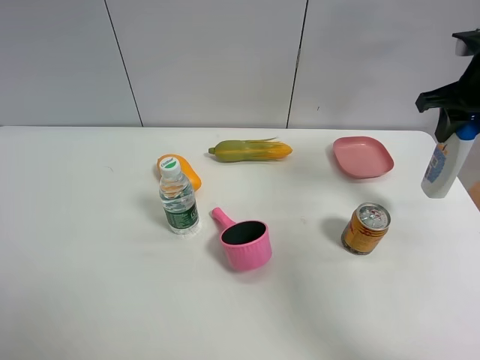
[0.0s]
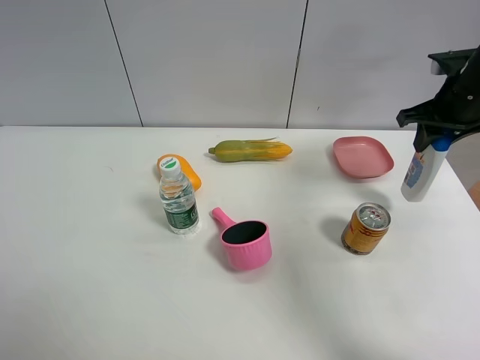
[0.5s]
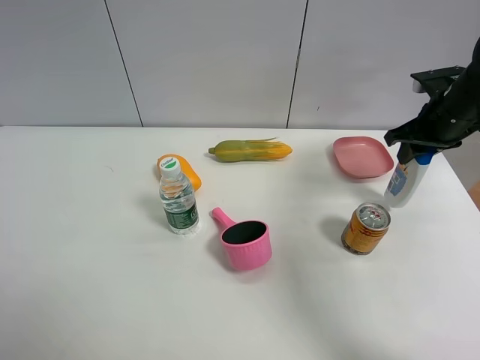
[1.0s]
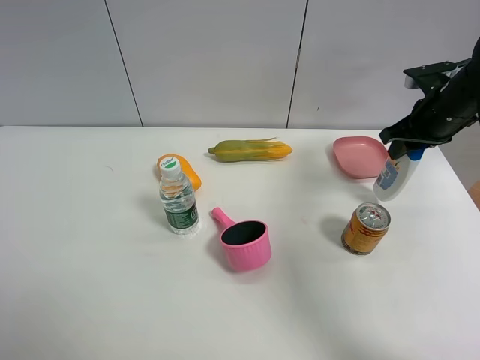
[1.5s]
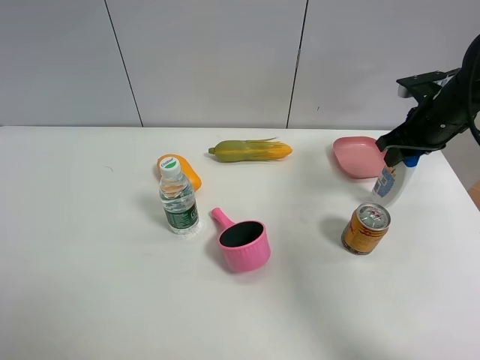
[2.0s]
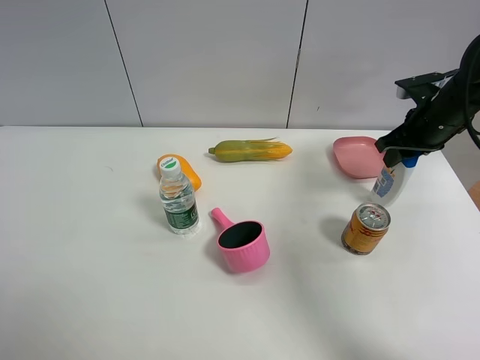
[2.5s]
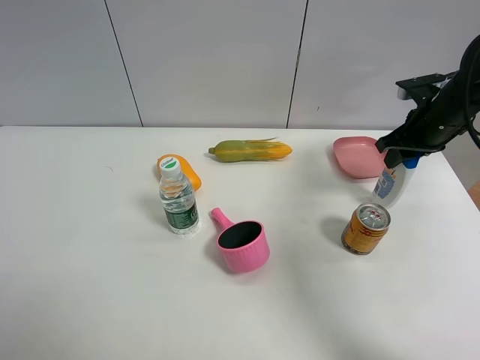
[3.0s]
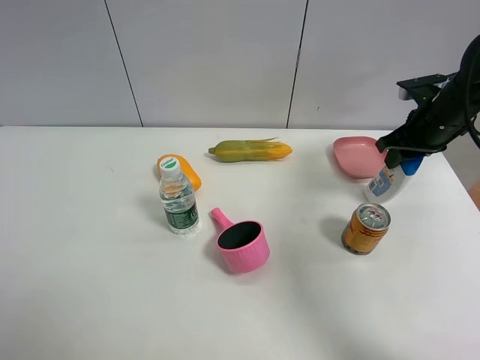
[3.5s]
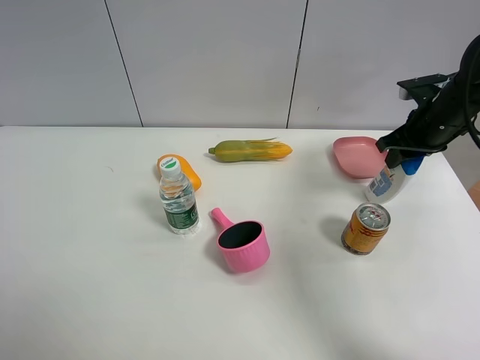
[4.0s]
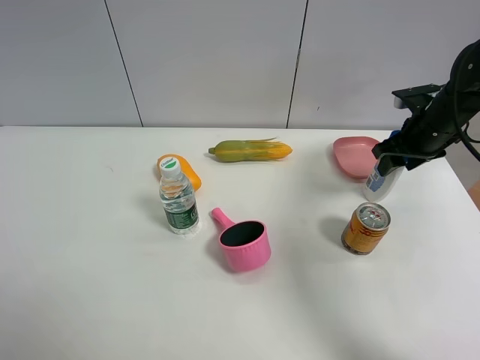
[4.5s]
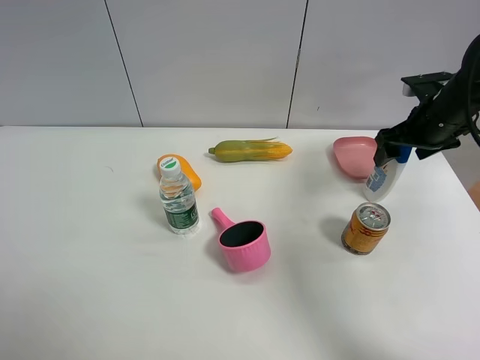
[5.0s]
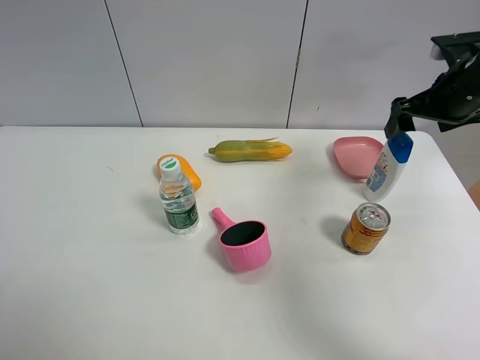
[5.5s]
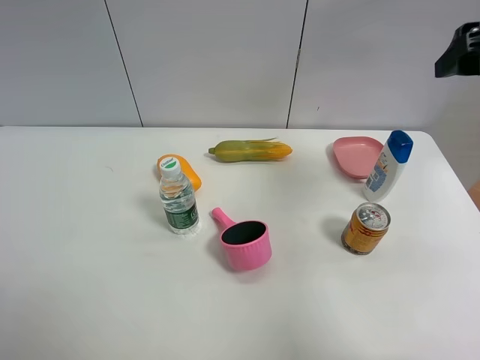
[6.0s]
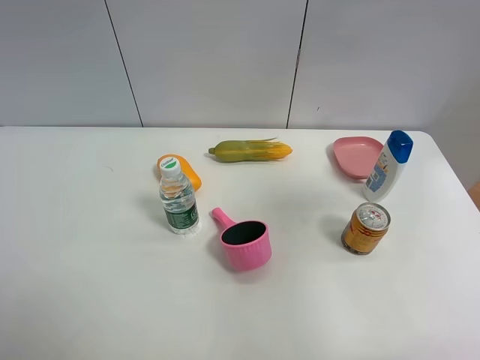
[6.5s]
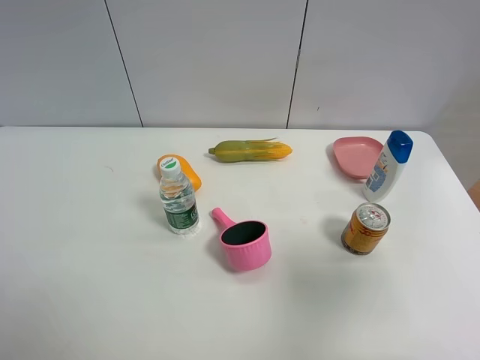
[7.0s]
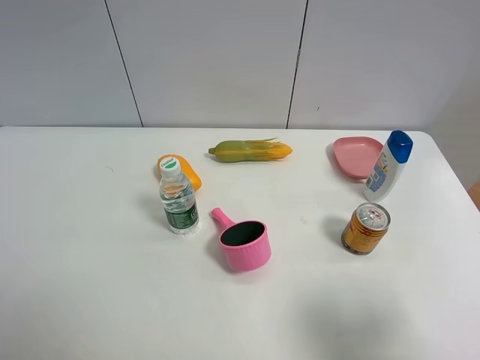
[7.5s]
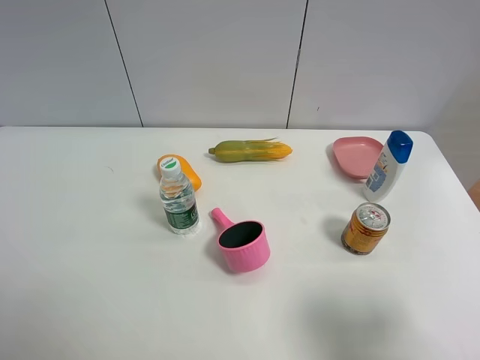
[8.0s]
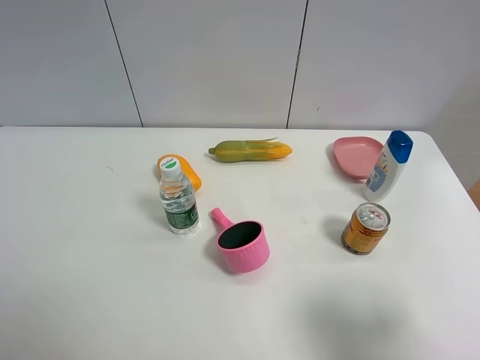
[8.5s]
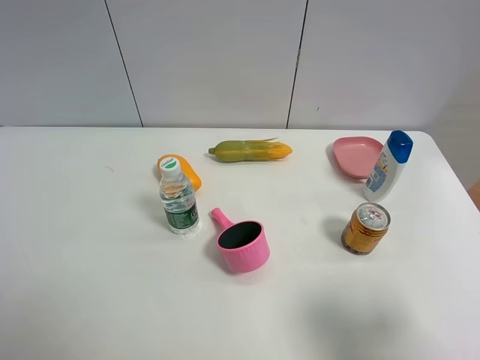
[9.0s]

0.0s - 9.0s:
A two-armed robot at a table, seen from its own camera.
Task of the whole recording: the gripper move the object.
Step, 0.0s - 4.5s: Place the shampoo on the table with the right gripper.
0.0s - 2.0s: The right gripper moves downward, some 10 cm.
2.0s - 4.5s: The grippers make only small movements.
4.5s - 7.0s: The right gripper goes some 40 cm backward and upward, and opens up.
7.0s - 9.0s: The right gripper shifts approximately 10 cm downward.

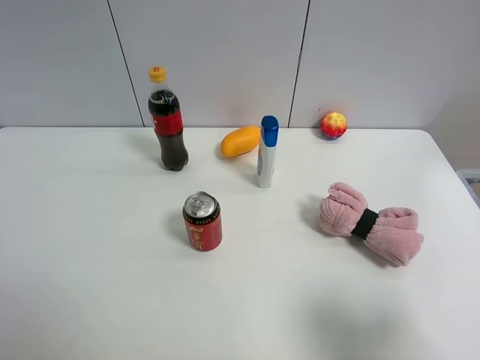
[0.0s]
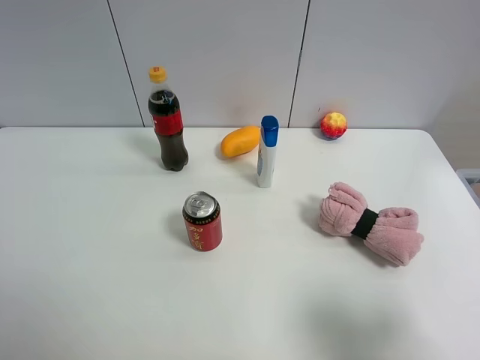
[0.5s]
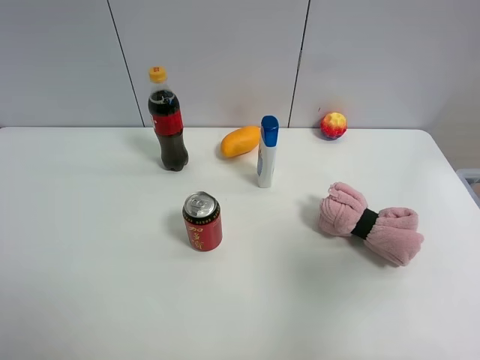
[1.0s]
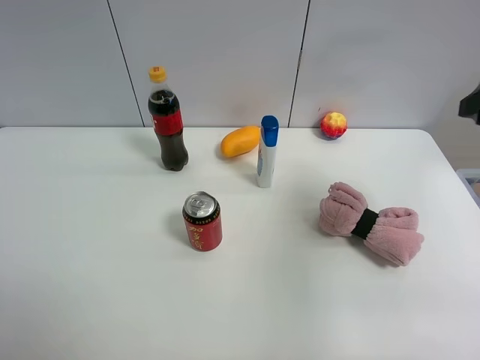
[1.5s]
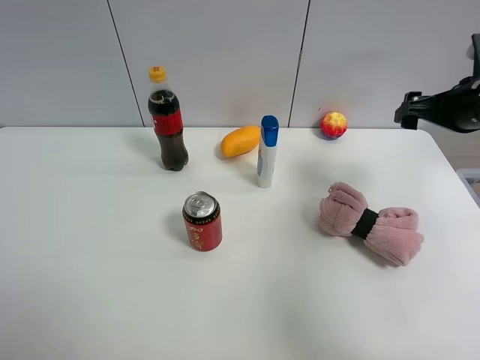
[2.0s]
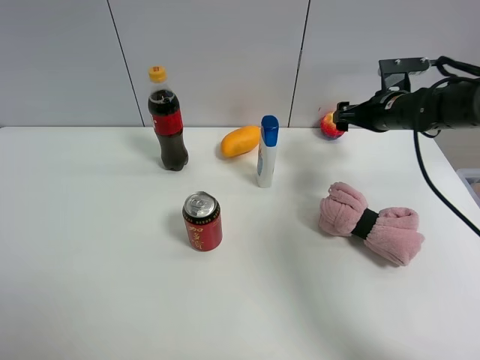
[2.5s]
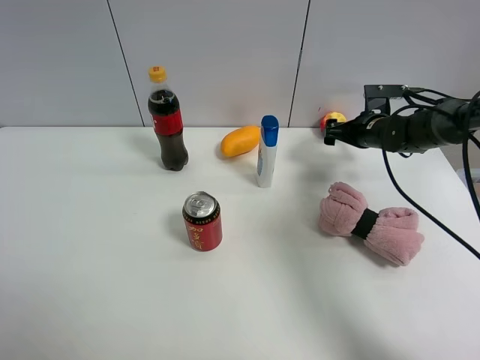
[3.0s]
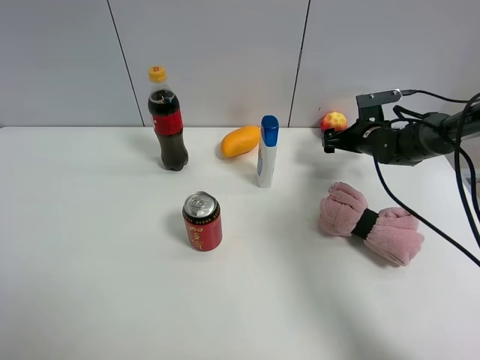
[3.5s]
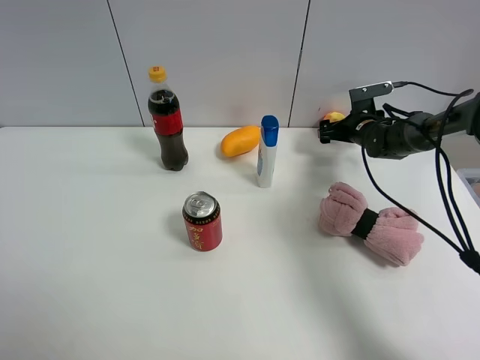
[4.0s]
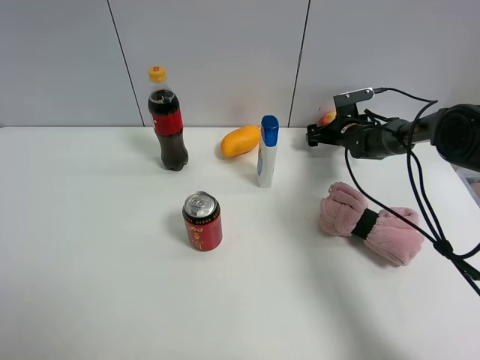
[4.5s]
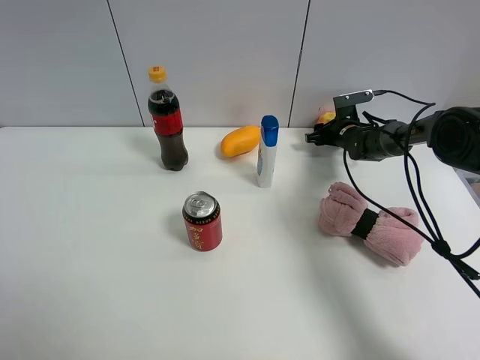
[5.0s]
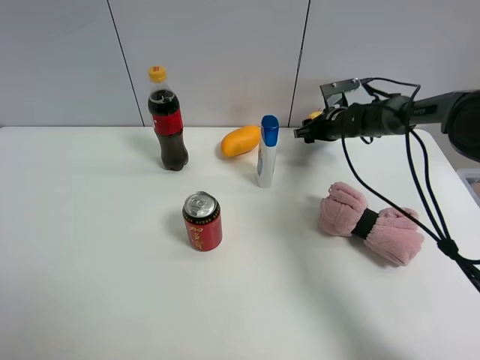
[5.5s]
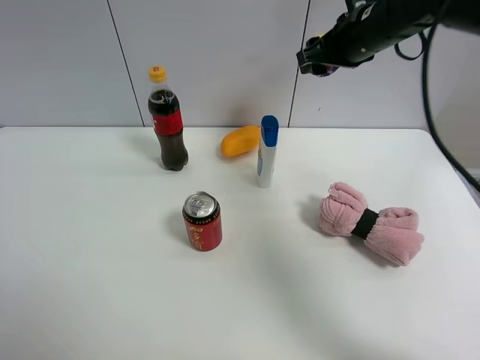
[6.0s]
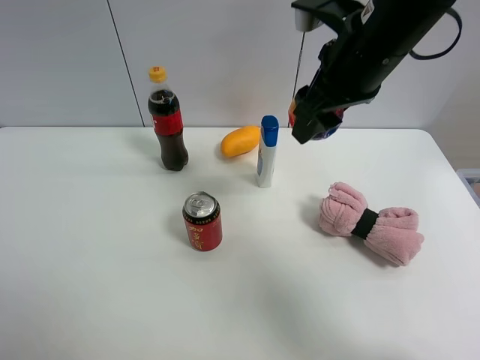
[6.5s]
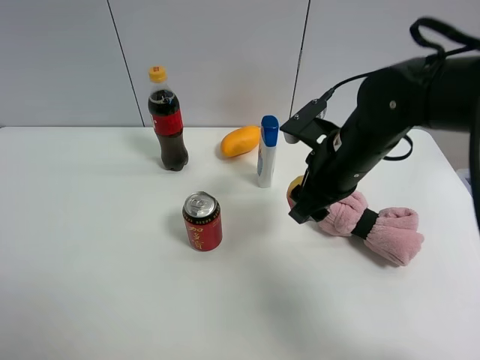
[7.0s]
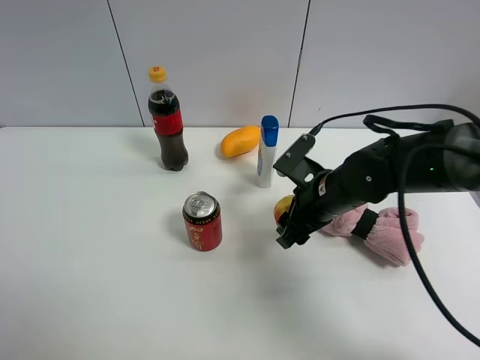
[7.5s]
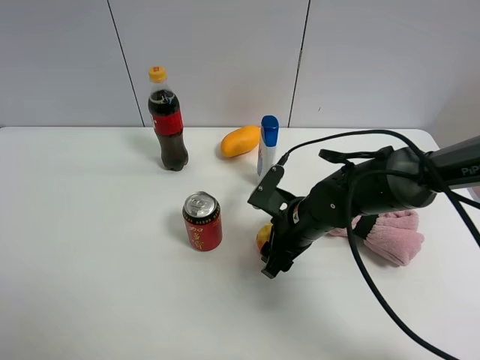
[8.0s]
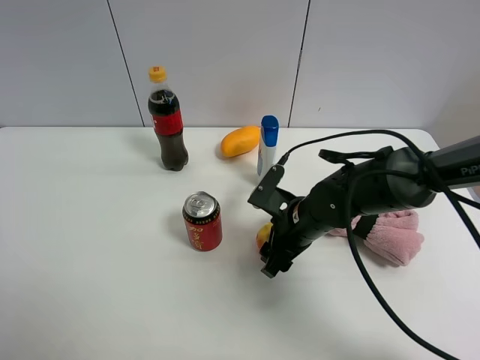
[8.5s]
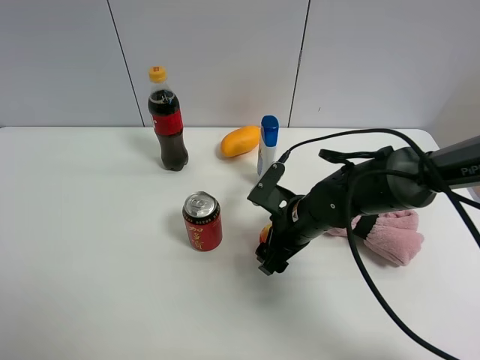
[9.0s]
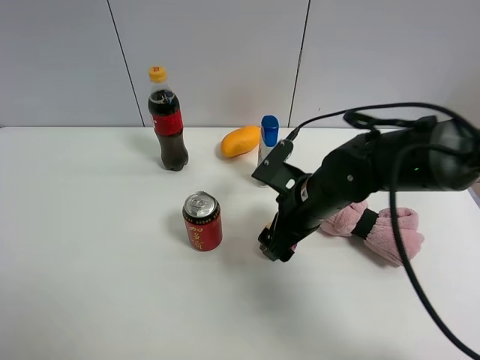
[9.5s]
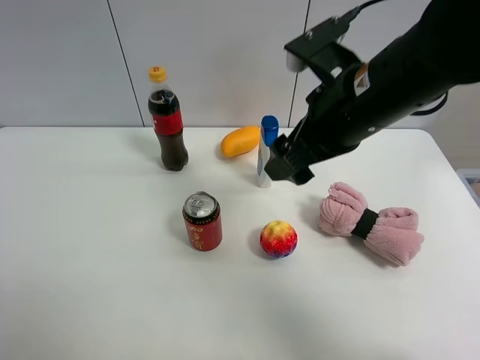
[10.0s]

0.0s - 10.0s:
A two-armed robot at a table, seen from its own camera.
Task of the whole recording: the gripper move the object.
Step, 0.0s - 4.5s: Grasp the colorful ball with the right gripper.
Step, 5.0s - 9.0s: Place the colorful ball on the table with the right gripper.
0.0s - 2.0s: The right gripper heads forward, covering about 30 cm.
2.0s - 4.0s: The right gripper moves downward and forward, about 25 cm.
4.0s - 6.0s: The right gripper shifts roughly 30 cm upward, to the left and backward, and closes up.
6.0s - 8.0s: The right gripper shifts roughly 25 cm downward and backward.
8.0s - 10.0s: The right gripper is displaced upward by approximately 20 cm, and opens its fingers.

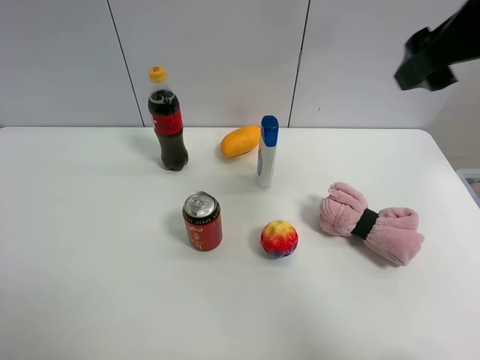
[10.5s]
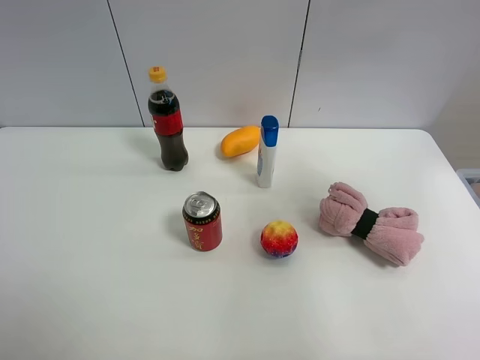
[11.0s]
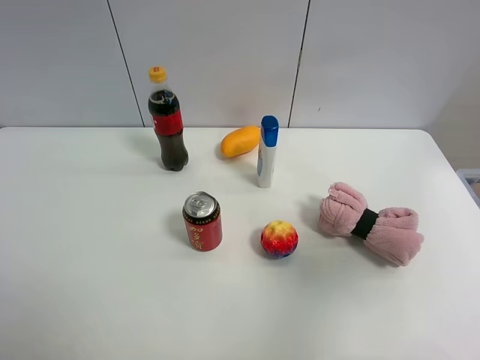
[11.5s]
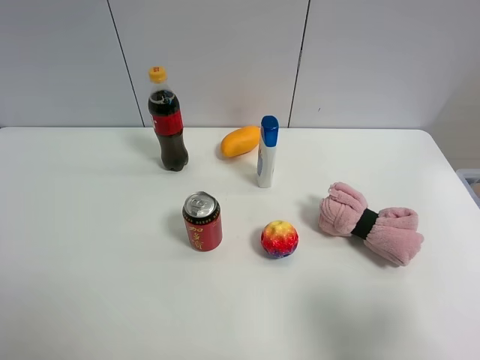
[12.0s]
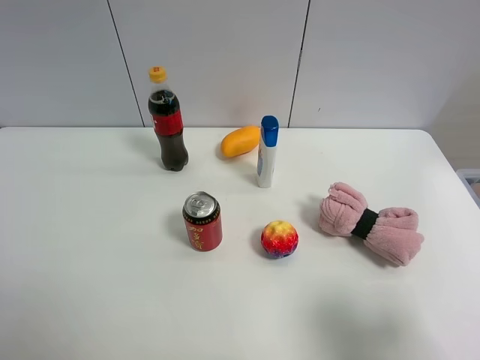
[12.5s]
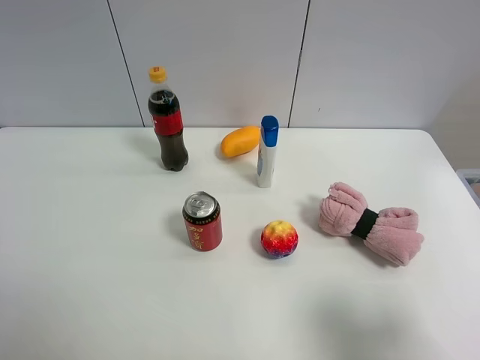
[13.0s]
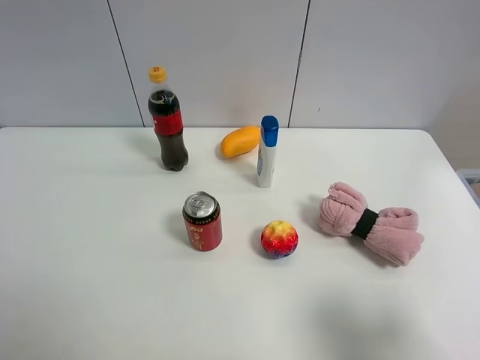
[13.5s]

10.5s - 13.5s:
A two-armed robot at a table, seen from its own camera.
Task of the whole recording: the gripper move the object.
10.5s - 12.0s: The right gripper moves backward and downward, roughly 25 cm.

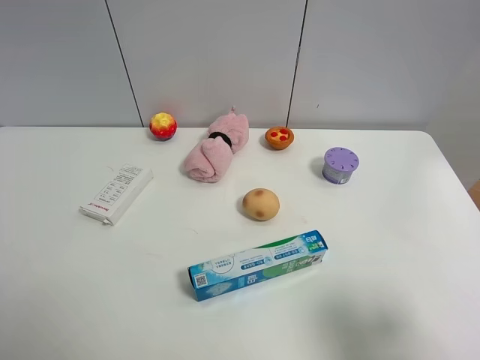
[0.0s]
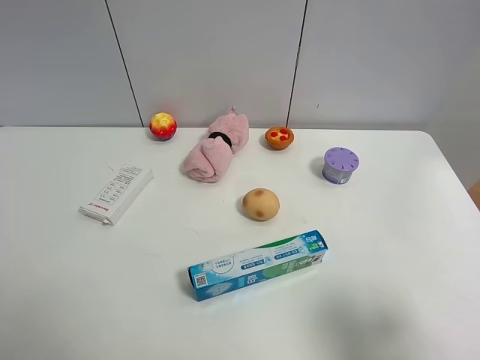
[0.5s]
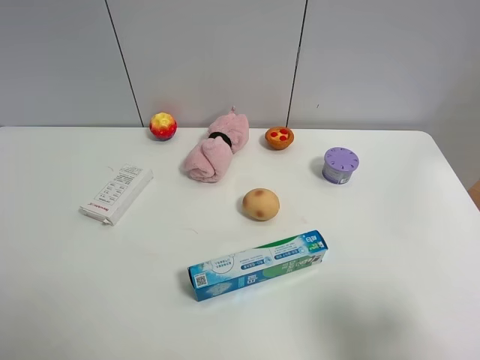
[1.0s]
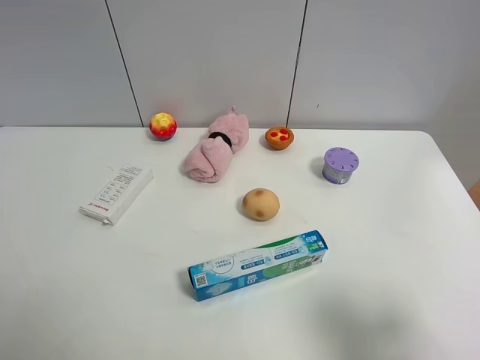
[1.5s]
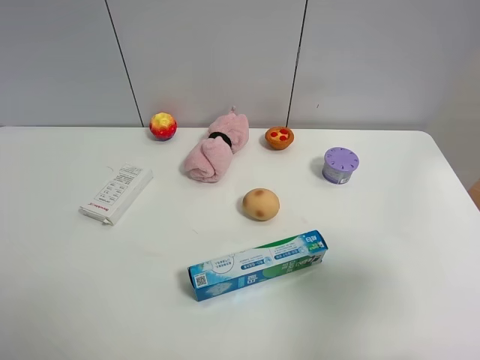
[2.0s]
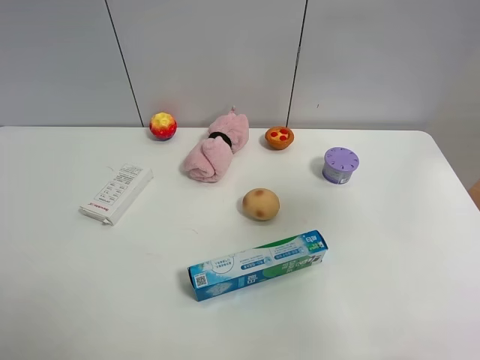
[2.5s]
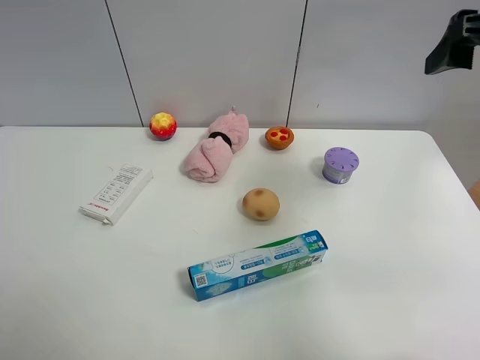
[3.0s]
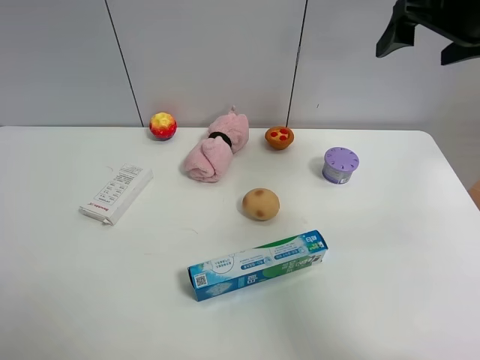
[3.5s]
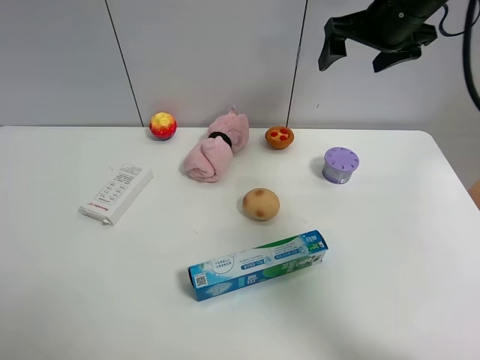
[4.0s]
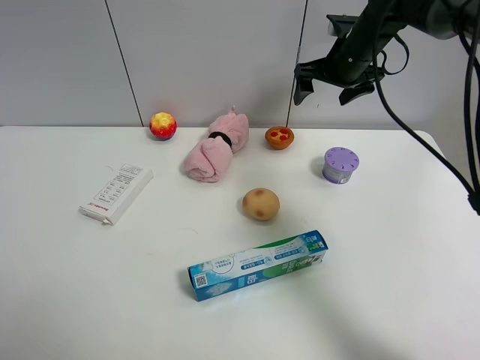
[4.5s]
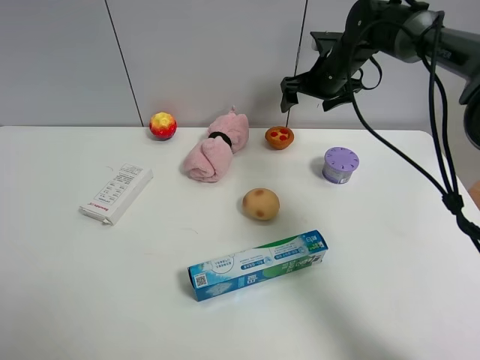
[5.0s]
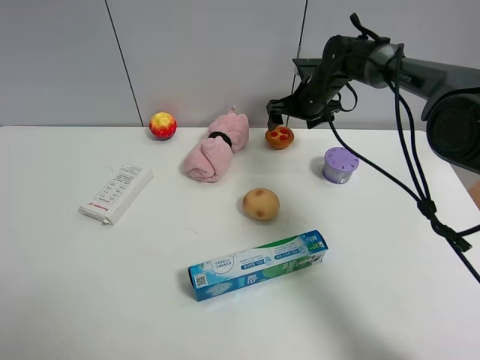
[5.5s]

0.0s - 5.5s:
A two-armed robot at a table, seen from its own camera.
Task of the whole recording: the gripper move the object.
0.0s - 2.0s: The right gripper moves forward and upward, approximately 10 cm, and closes and opens again.
2.0s - 3.5s: The right gripper moves forward, approximately 25 cm.
3.5s - 5.5s: The right gripper travels downward, forward and to the left by about 30 cm.
